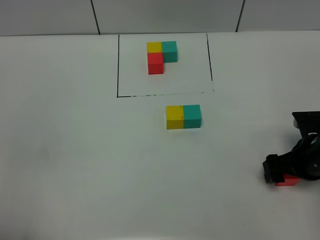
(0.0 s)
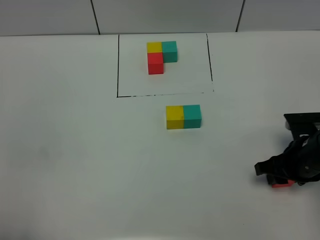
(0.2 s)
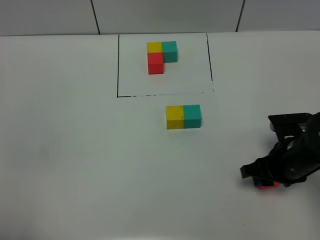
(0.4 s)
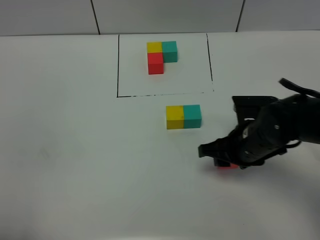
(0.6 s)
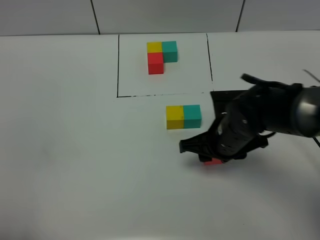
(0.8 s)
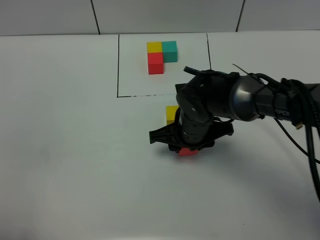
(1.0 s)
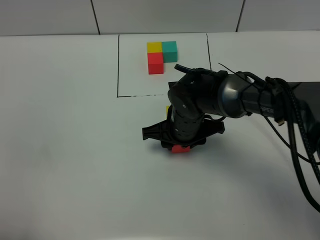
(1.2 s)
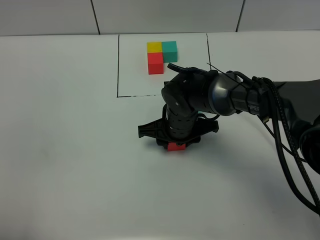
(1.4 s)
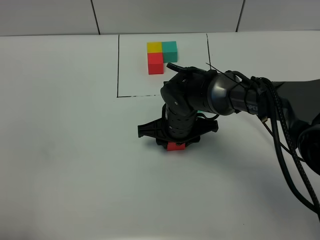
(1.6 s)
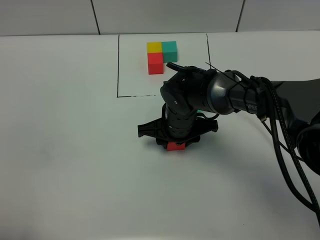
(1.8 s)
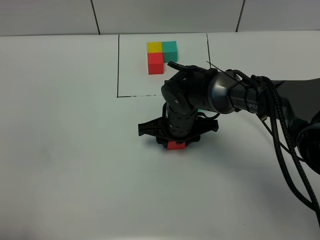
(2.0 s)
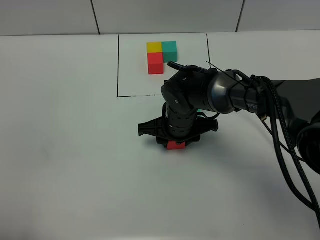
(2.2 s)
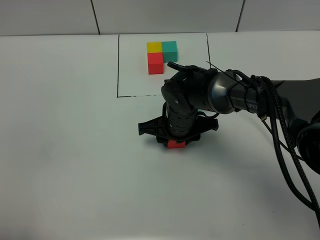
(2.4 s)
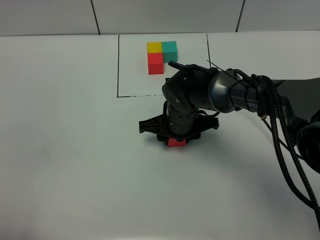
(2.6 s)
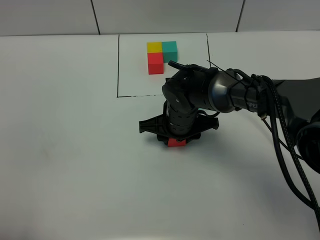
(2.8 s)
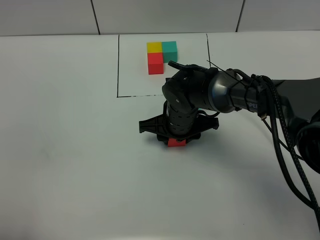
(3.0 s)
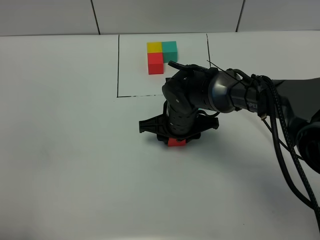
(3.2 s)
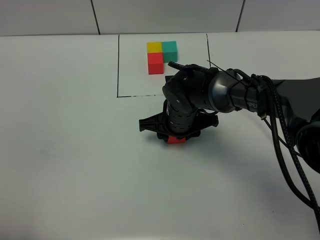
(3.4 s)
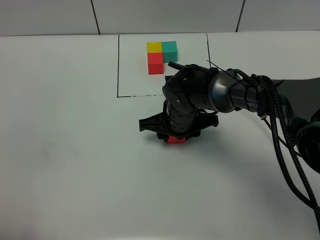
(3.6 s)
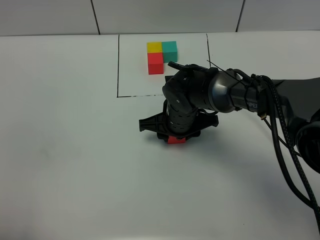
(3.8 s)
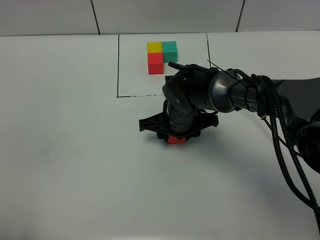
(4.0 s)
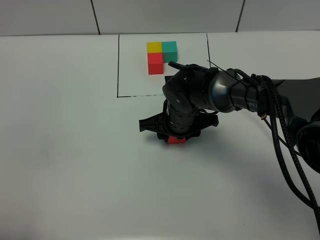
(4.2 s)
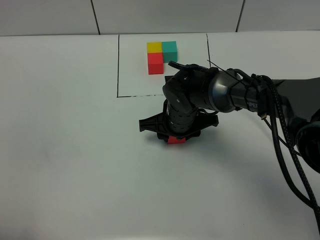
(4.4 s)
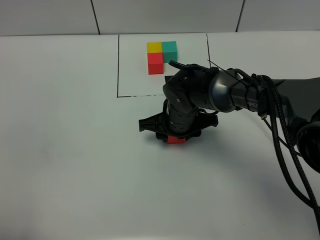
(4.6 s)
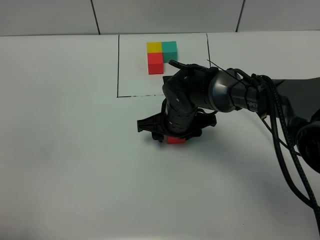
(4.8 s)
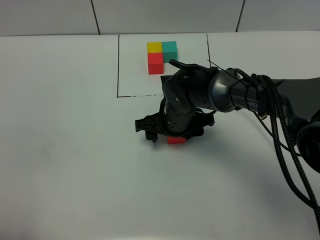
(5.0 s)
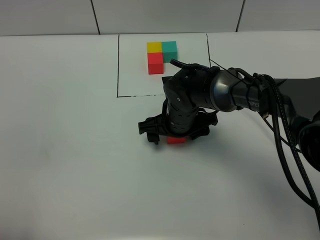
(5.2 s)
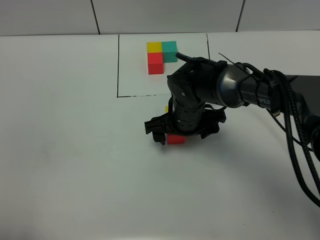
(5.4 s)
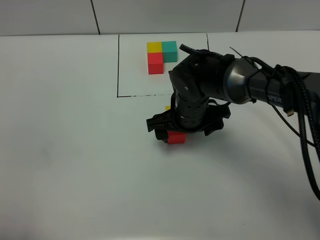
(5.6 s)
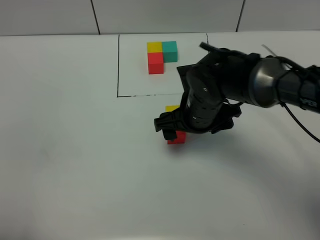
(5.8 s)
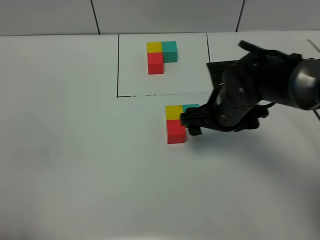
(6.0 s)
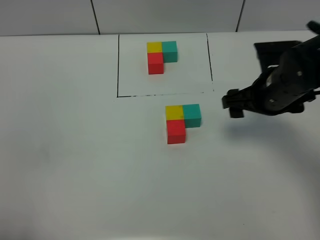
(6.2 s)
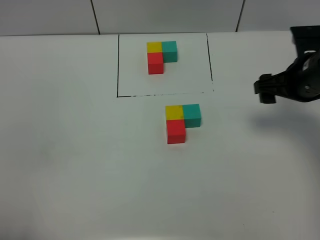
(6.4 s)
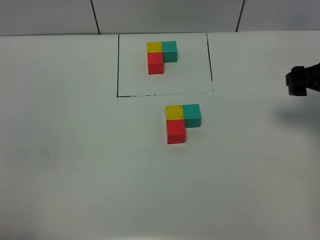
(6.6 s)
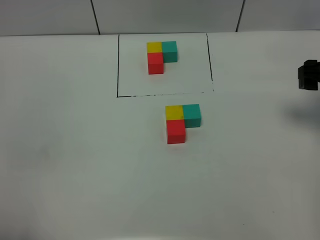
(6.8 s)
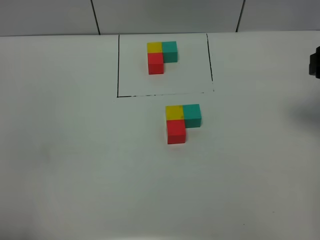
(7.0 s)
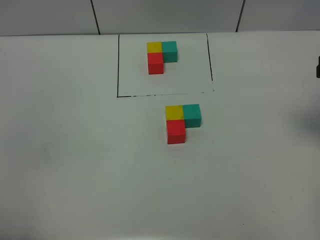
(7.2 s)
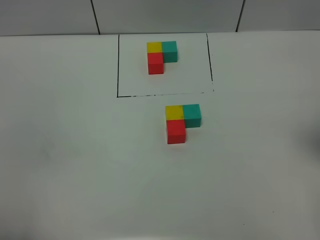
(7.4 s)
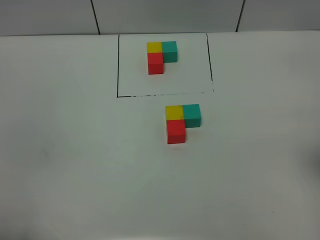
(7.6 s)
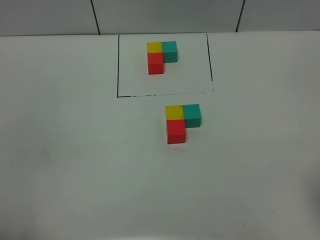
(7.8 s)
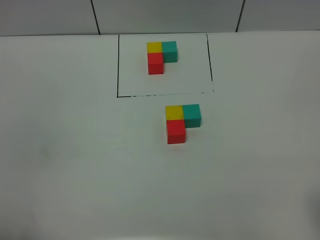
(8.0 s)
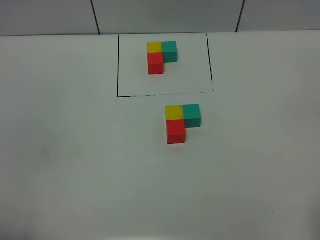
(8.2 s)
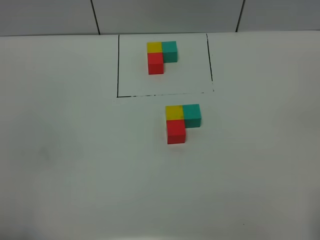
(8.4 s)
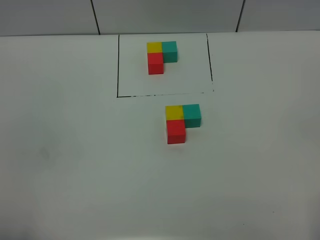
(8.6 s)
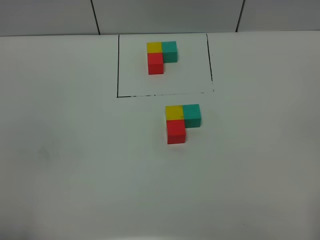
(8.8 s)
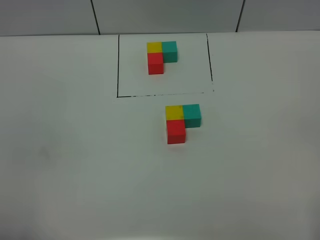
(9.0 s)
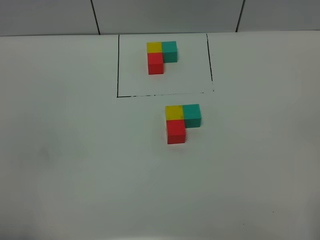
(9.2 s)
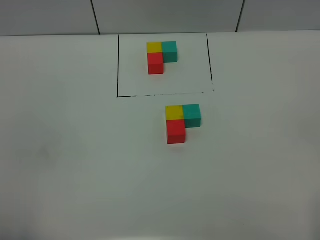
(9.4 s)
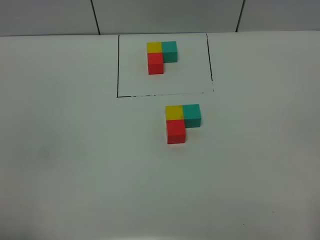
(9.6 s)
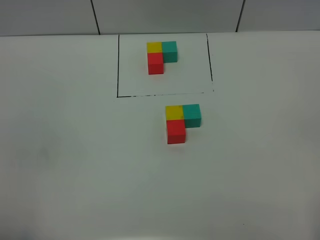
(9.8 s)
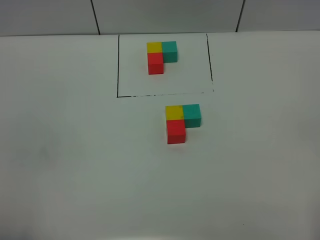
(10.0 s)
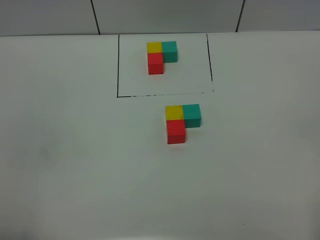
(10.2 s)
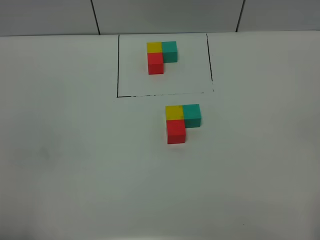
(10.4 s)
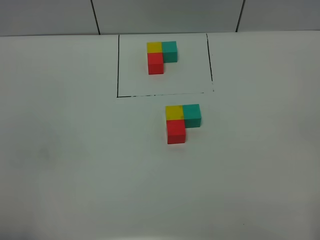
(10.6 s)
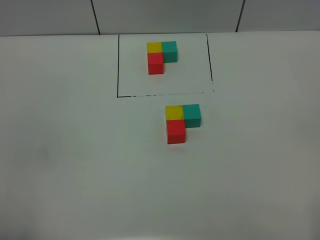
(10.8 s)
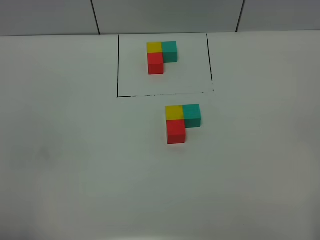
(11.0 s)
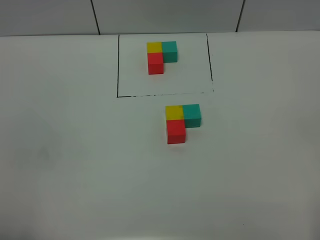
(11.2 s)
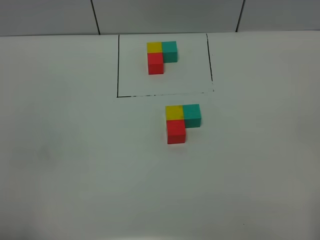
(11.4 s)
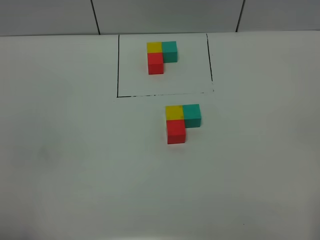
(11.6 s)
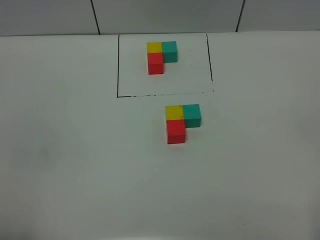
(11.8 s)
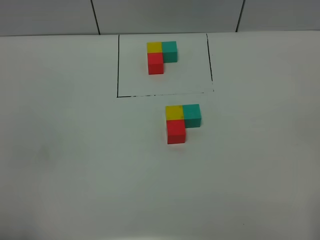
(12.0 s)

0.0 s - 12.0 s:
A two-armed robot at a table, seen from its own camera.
Task of the whole recording: According to the building block template in front, assemble the scattered blocks together.
Step, 0.0 s - 5.2 s: Put the red build block on the behind of the yellow build block.
0.0 s - 1.6 s: The right gripper goes roughly 25 cm to the left, and closes.
1.6 s - 4.4 s: The two grippers keep their place.
4.4 s - 6.0 s: The right gripper moves to the right and upward, approximately 10 cm, and opens up.
6.0 s - 7.6 s: The right gripper moves to the right, upward and backward, approximately 25 cm.
9.0 s - 12.0 s: Neither gripper changes place.
